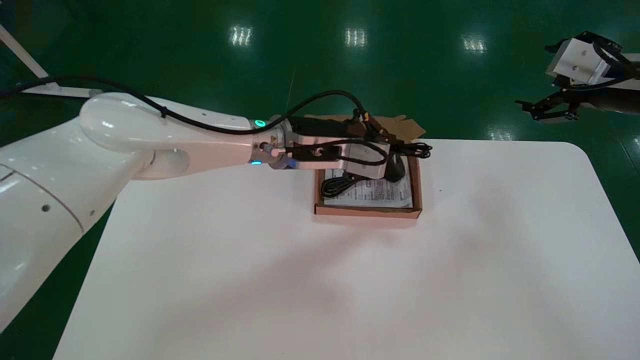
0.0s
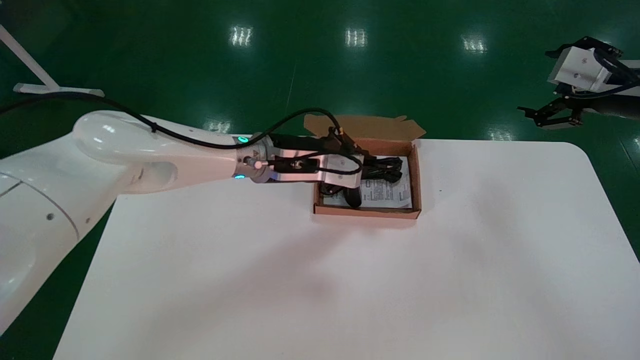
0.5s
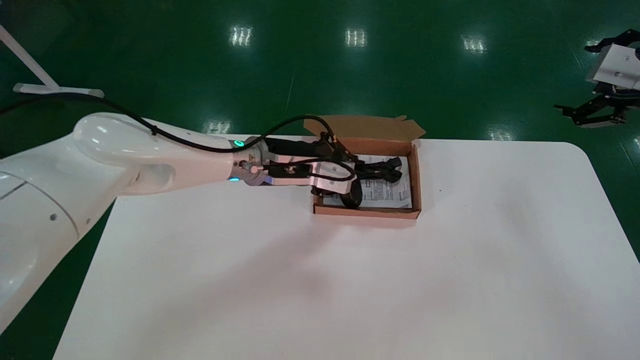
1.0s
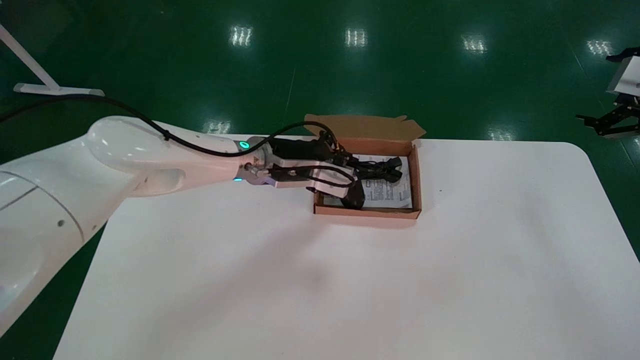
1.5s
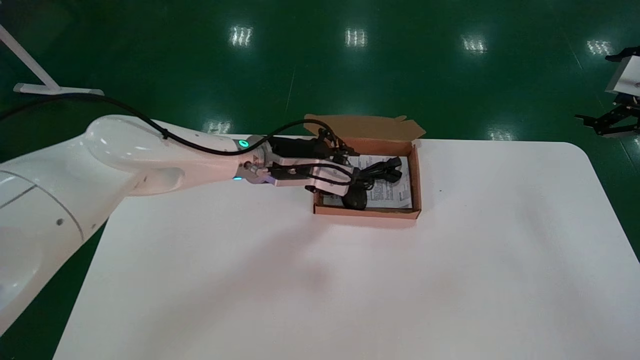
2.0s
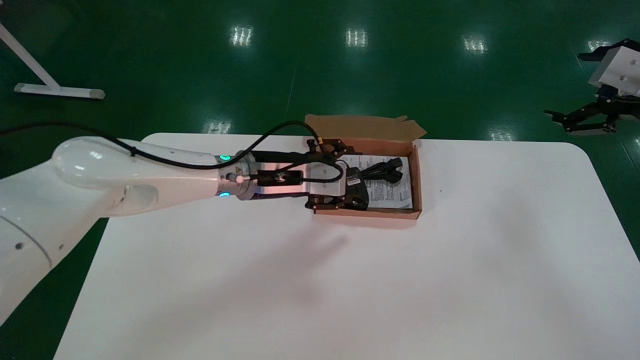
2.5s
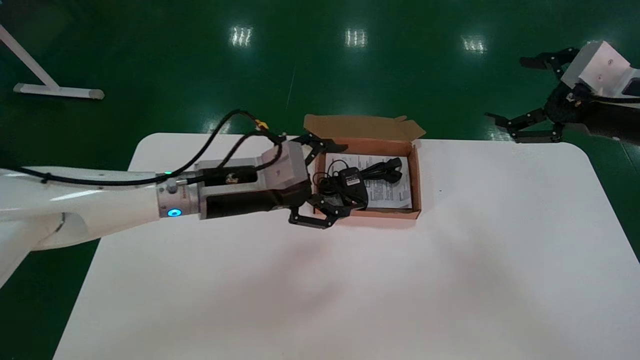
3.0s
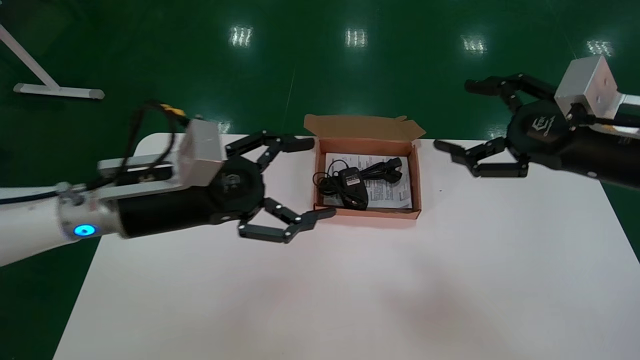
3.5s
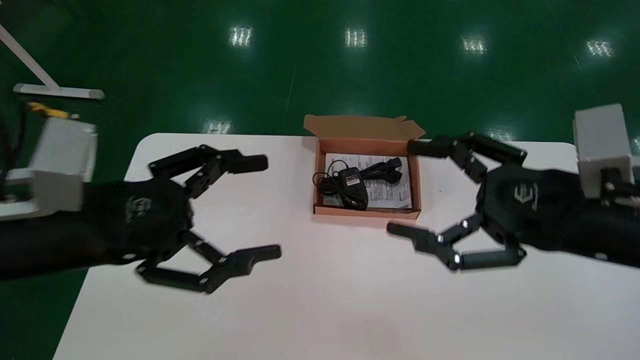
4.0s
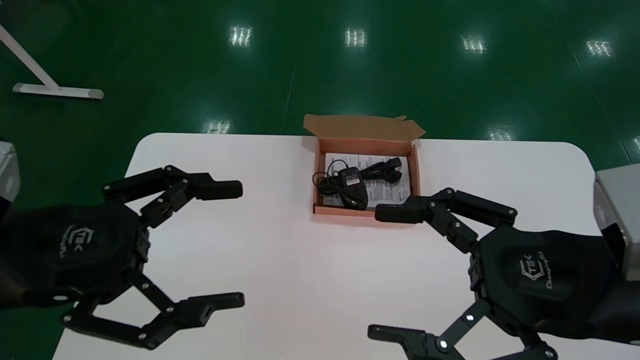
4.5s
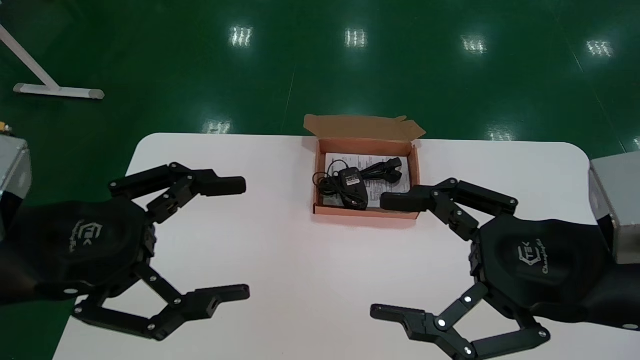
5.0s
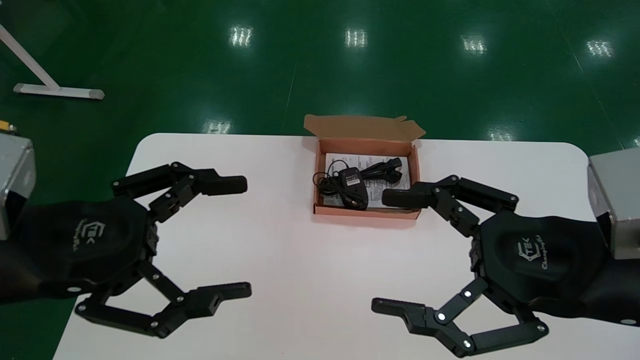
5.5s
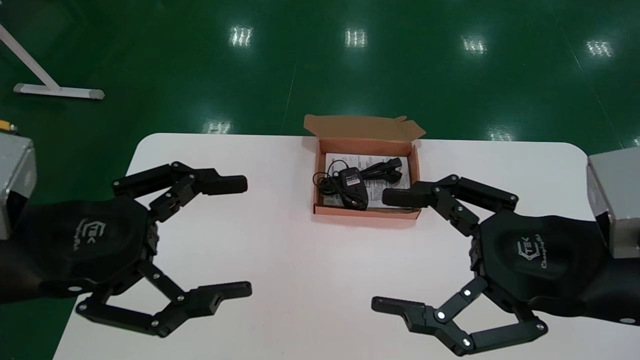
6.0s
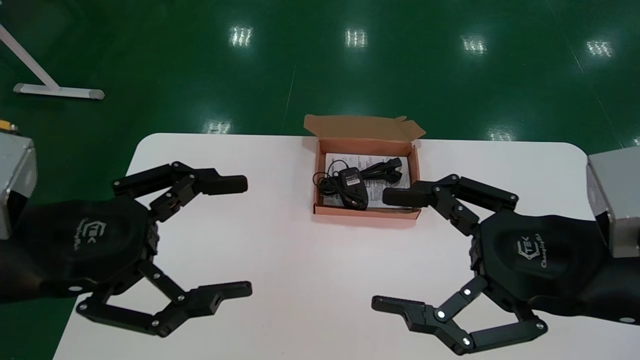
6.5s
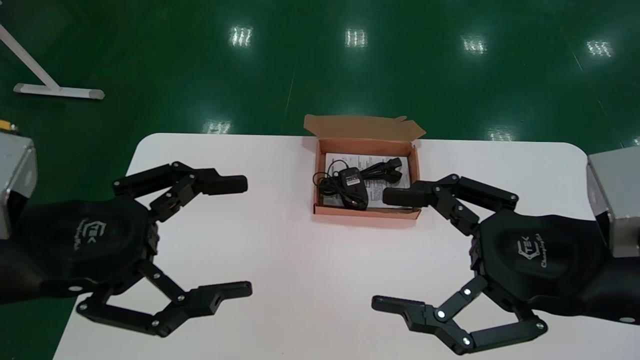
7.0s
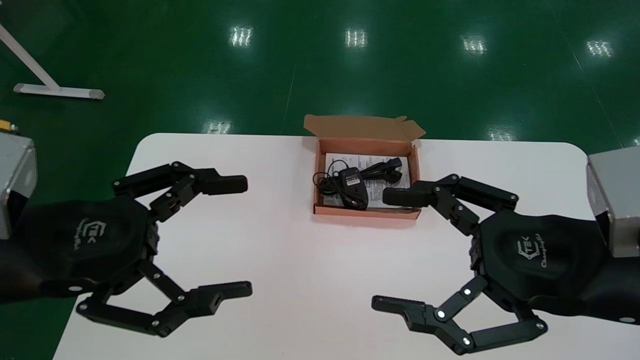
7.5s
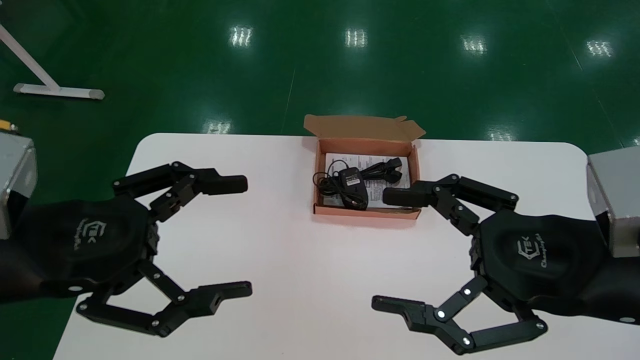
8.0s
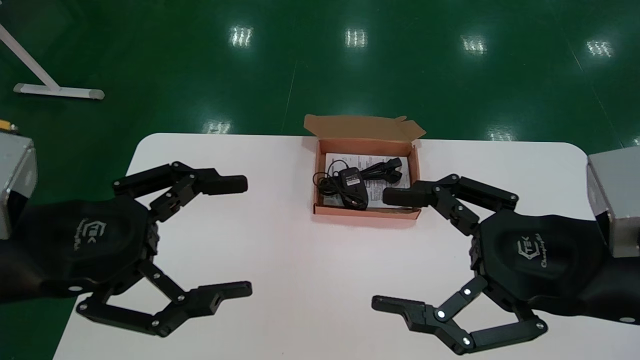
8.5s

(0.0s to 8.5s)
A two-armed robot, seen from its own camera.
Step, 0.0s - 2.0s: Place the mouse and power cord into the box.
0.0s - 2.0s: The right gripper travels to the right by approximately 5 cm.
2.0s - 4.0s: The left gripper goes some 25 cm backward and to the left, and opens up, while the right gripper shifts about 25 cm to the left and backward.
4.0s - 6.5s: The two grippers go approximately 5 cm backward.
6.5s - 8.5s: Both grippers stay put.
